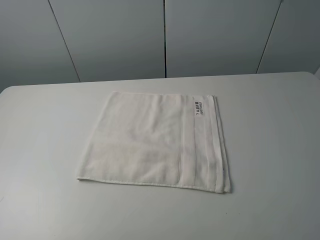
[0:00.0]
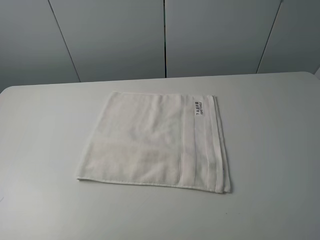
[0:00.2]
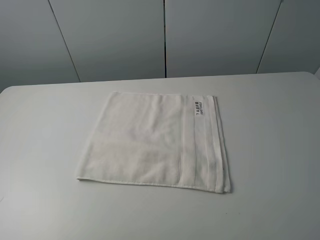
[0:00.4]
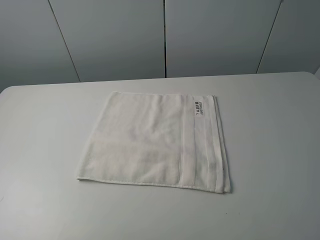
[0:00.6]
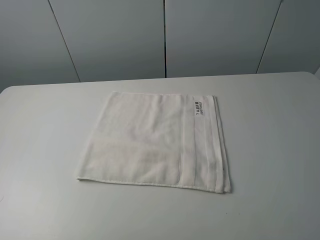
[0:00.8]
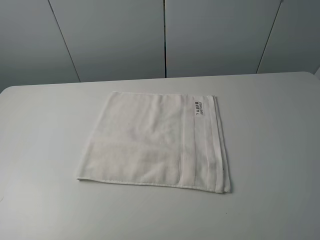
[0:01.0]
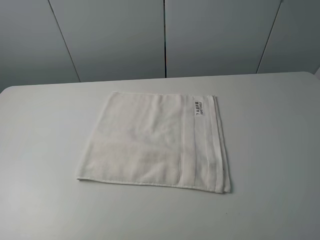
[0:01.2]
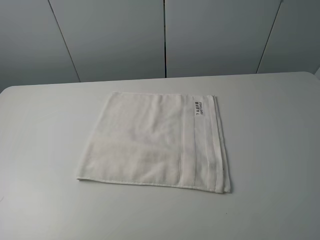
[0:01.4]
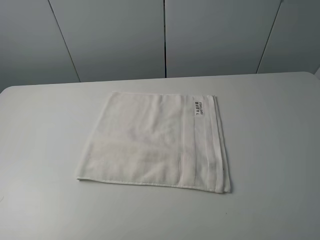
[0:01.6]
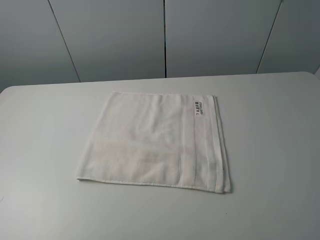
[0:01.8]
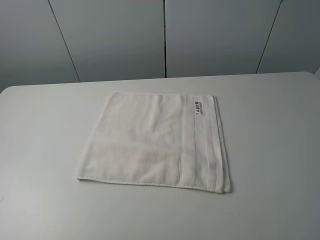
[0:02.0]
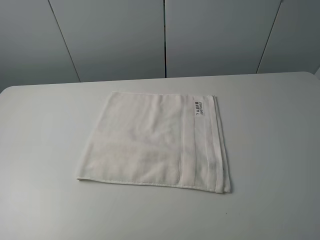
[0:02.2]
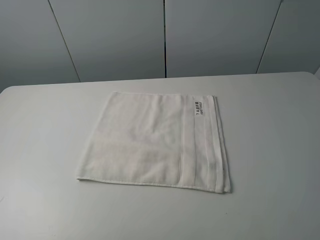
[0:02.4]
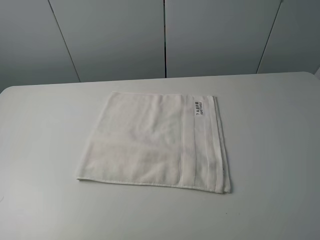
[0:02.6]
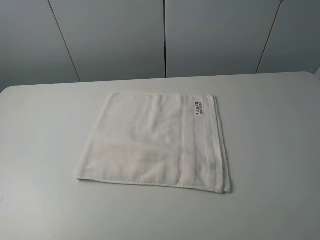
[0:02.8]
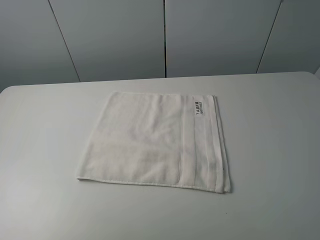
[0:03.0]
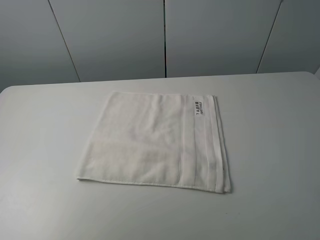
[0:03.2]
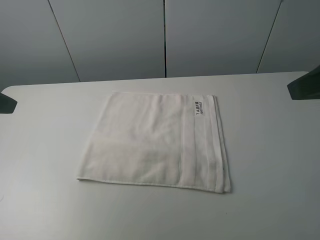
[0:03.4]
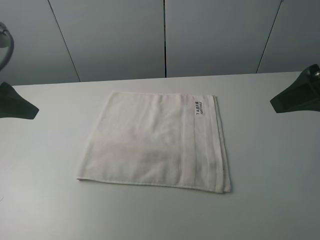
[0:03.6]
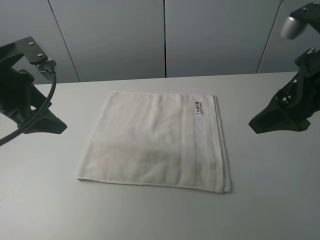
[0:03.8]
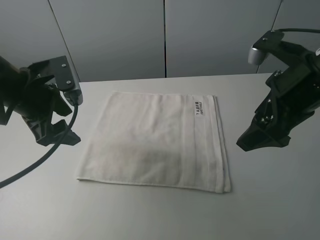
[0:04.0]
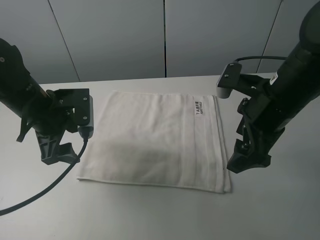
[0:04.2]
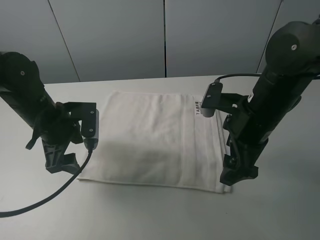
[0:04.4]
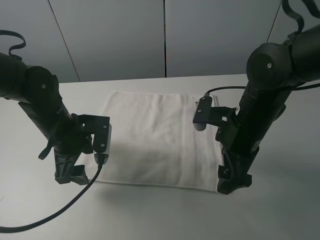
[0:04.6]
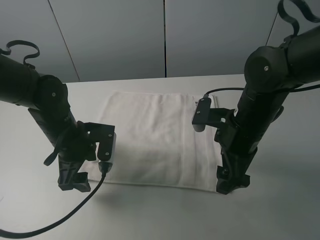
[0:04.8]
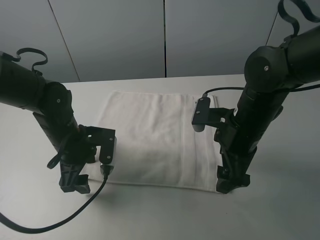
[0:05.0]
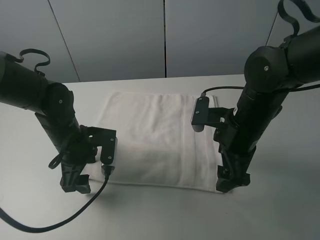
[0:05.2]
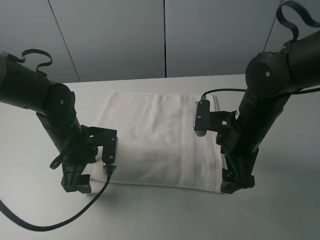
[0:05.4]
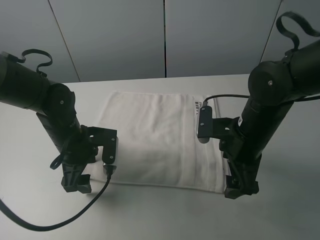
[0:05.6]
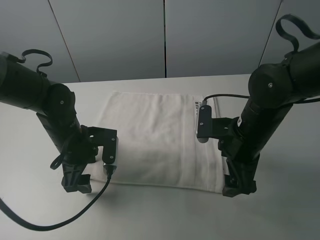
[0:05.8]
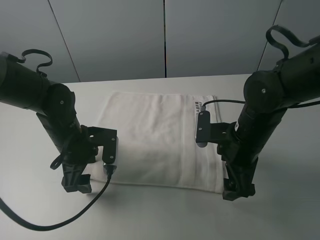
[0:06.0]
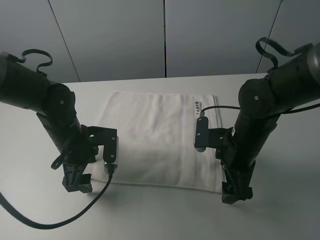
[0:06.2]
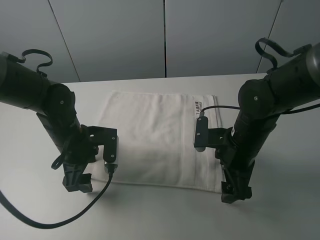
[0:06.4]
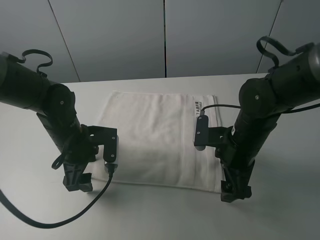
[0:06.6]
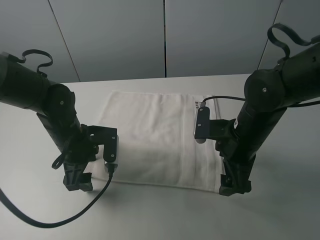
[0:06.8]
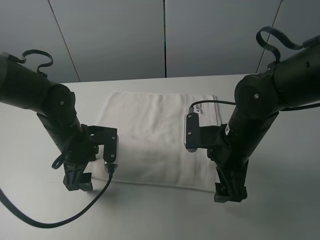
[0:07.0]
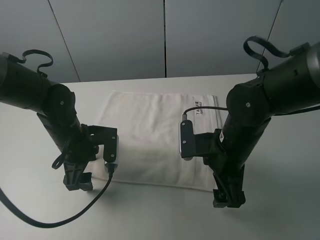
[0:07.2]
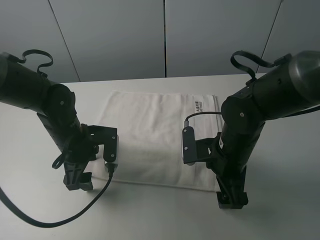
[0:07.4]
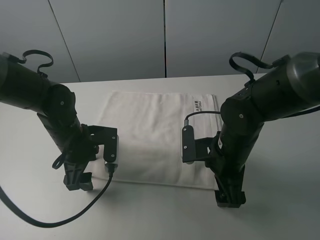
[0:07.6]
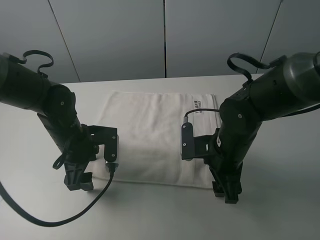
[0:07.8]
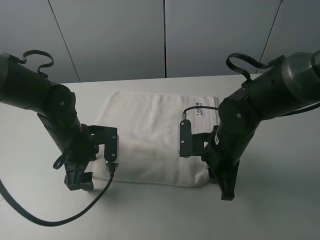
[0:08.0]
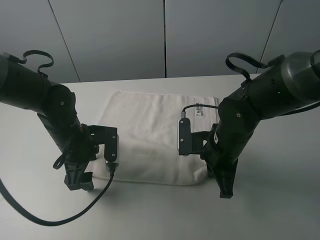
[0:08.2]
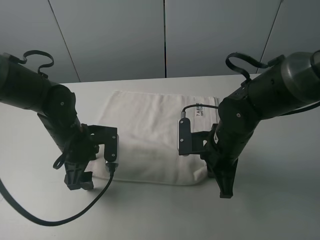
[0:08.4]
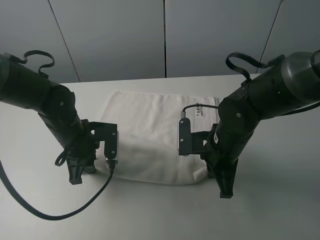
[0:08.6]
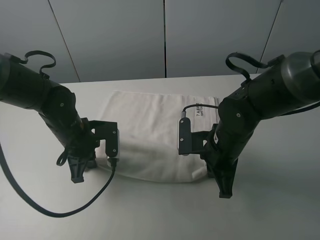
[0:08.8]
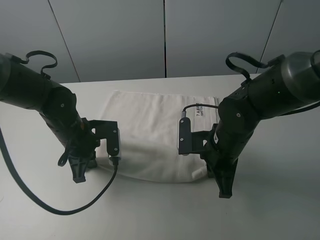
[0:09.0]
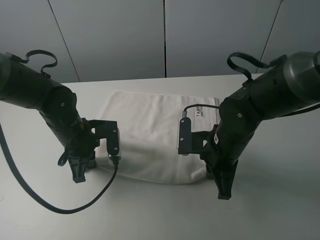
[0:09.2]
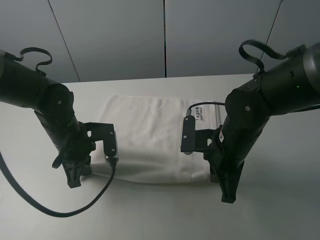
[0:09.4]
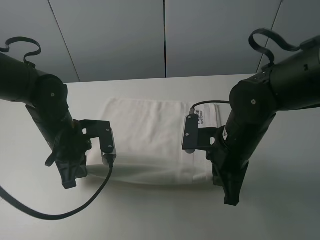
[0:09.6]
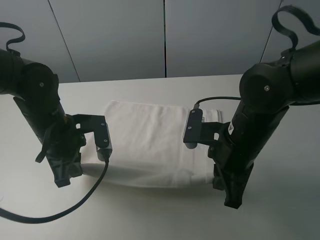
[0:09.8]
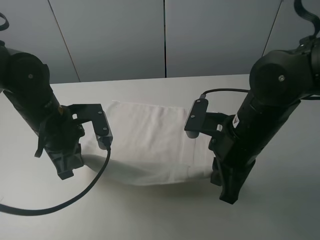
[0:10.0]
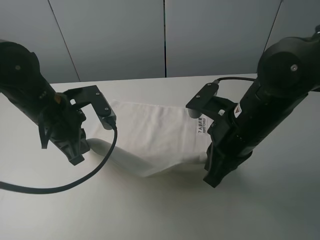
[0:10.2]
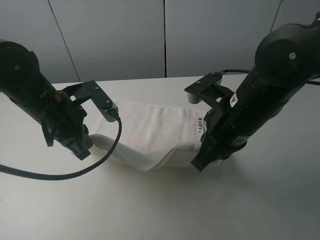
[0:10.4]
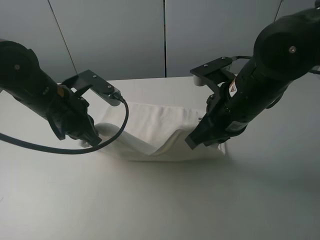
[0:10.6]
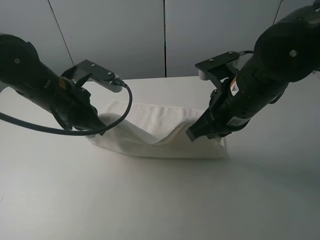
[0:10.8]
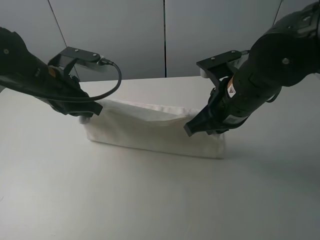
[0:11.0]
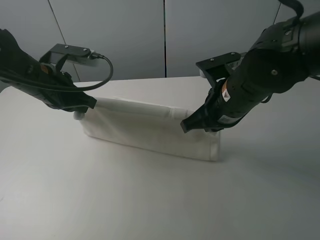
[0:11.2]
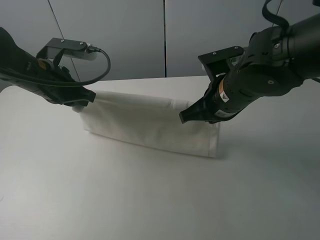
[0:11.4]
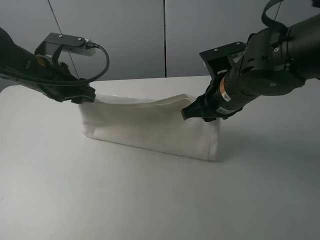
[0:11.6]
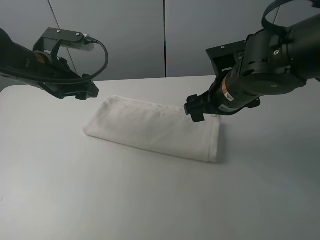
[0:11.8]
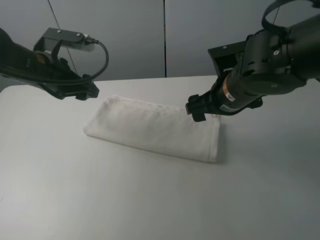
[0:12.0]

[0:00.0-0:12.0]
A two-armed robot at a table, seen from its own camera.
Task of the whole recording: fold the towels on the table.
Step, 0:00.0 to 0:08.2: Grasp the white towel with the right gripper.
Step, 0:08.4 to 0:08.6: Grasp the white towel with the left gripper.
Step, 0:08.8 to 0:11.8: Fold the white towel upwards with the right gripper.
0:00.0 to 0:01.6: Both grippers stay about where they are.
0:03.0 to 0:04.4: The left gripper heads downward, forward and to the right, covering approximately 30 cm, while the right gripper shifts some 25 cm forward, downward and to the left.
0:04.4 to 0:06.0: Both grippers travel together downward, approximately 5 cm.
0:06.0 to 0:07.6: The grippers stay close to where they were, moving slightly.
0:07.6 to 0:09.0: The right gripper closes up; the left gripper closes.
0:09.0 to 0:10.4: Both grippers move upward, approximately 10 cm.
0:10.4 to 0:12.0: Both grippers travel together forward, about 5 cm. The right gripper opens its fingers; the left gripper opens its fingers.

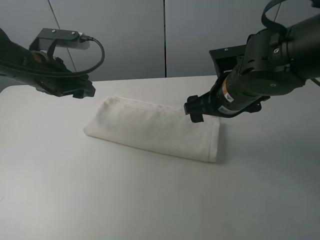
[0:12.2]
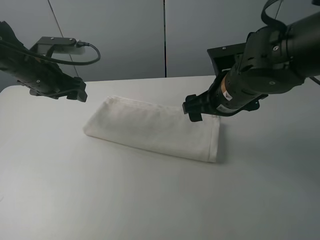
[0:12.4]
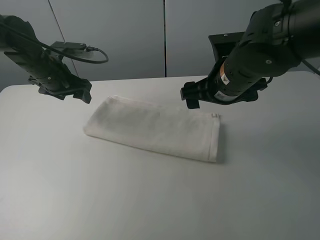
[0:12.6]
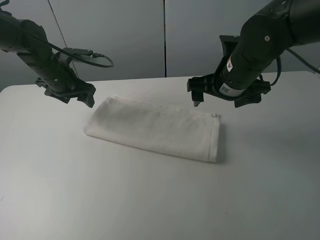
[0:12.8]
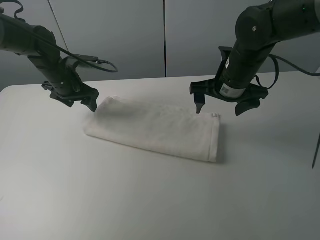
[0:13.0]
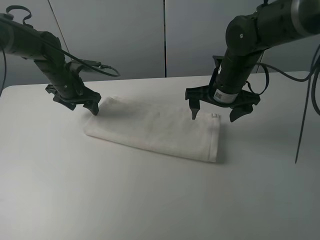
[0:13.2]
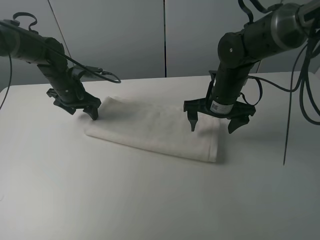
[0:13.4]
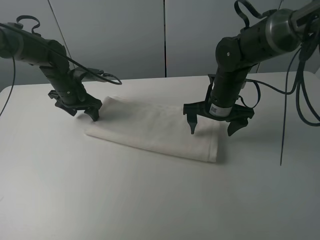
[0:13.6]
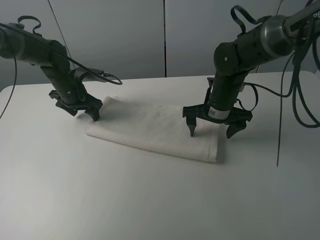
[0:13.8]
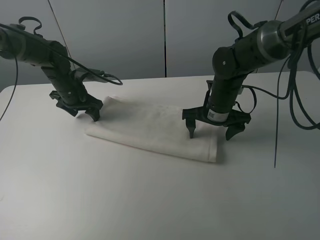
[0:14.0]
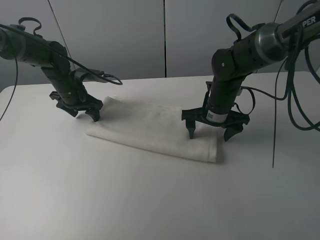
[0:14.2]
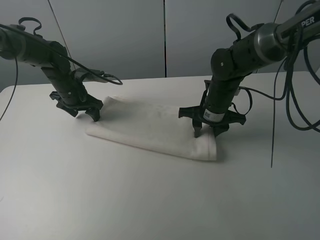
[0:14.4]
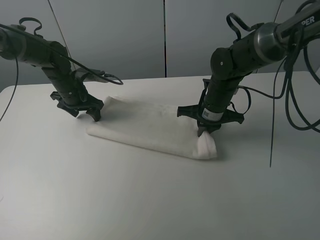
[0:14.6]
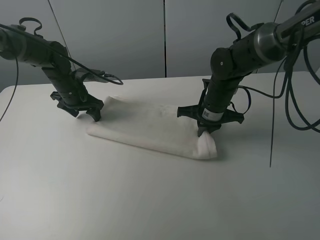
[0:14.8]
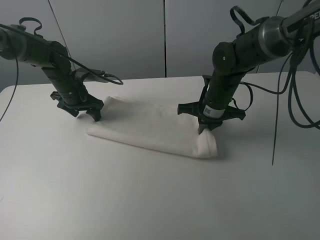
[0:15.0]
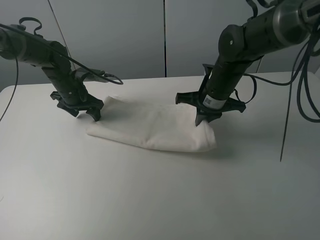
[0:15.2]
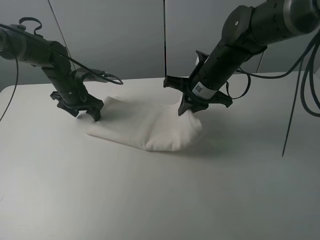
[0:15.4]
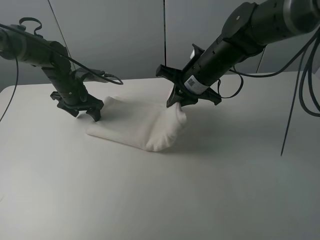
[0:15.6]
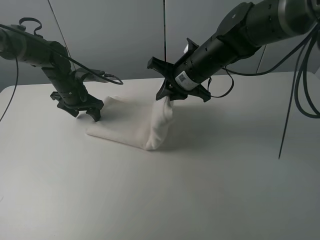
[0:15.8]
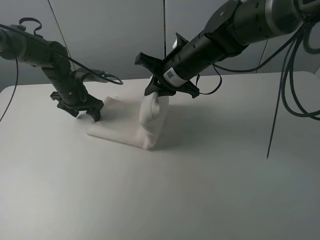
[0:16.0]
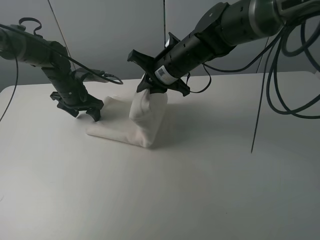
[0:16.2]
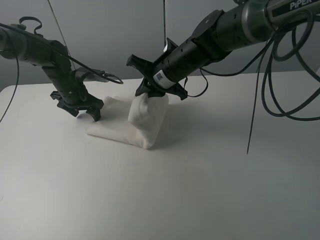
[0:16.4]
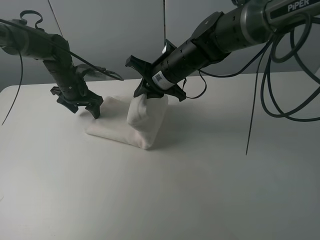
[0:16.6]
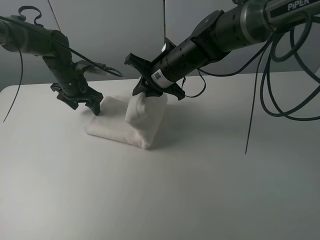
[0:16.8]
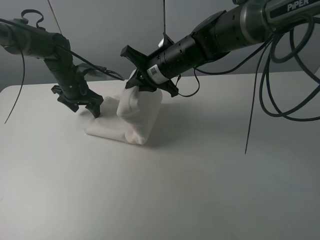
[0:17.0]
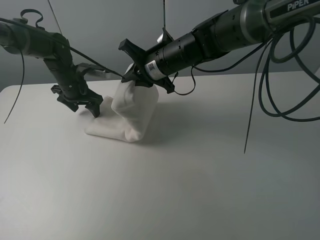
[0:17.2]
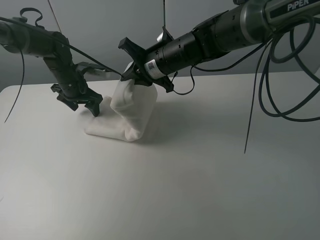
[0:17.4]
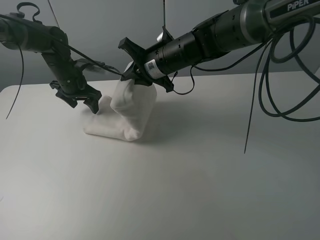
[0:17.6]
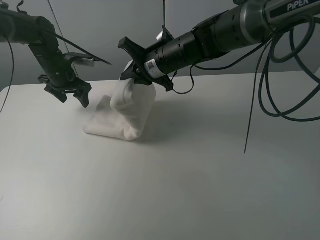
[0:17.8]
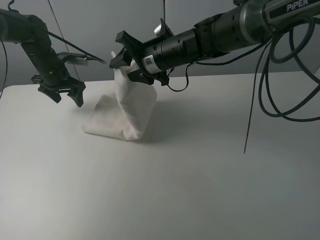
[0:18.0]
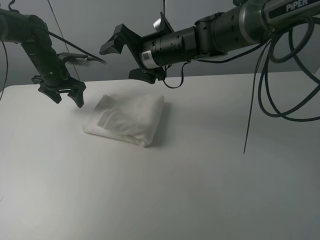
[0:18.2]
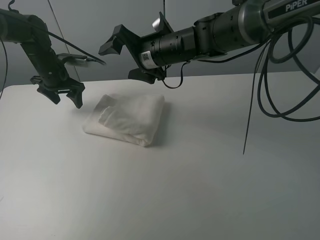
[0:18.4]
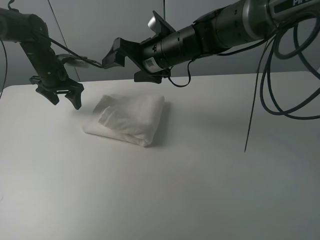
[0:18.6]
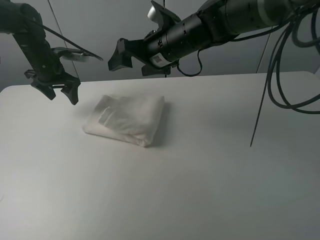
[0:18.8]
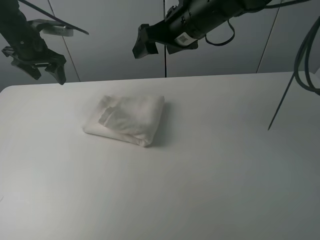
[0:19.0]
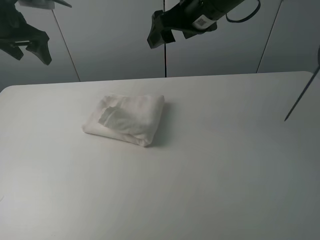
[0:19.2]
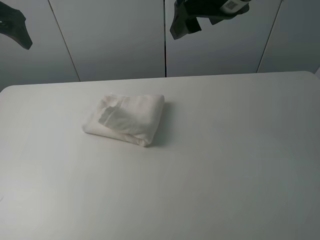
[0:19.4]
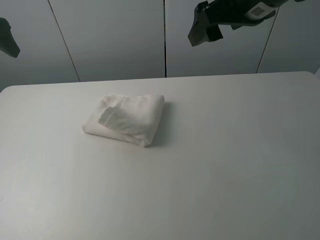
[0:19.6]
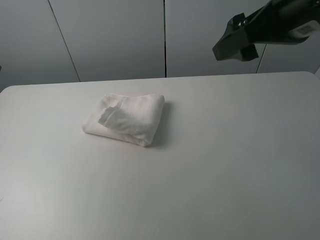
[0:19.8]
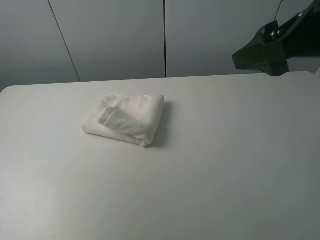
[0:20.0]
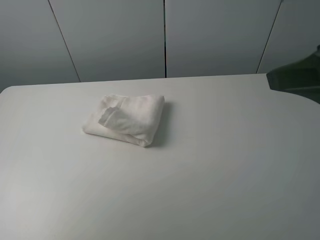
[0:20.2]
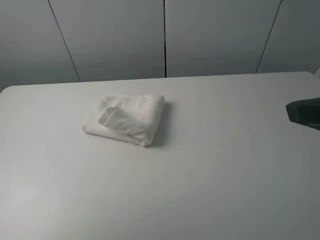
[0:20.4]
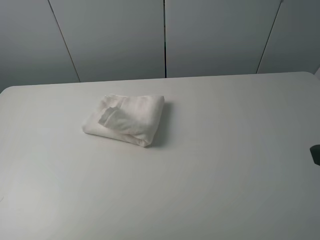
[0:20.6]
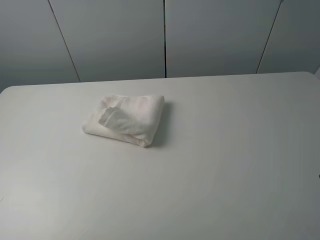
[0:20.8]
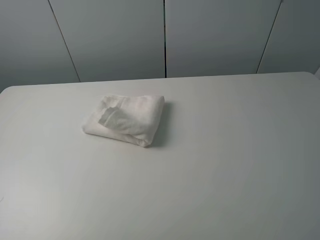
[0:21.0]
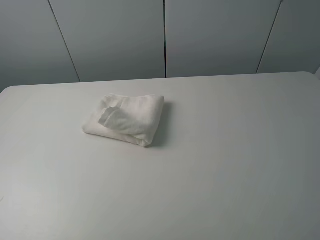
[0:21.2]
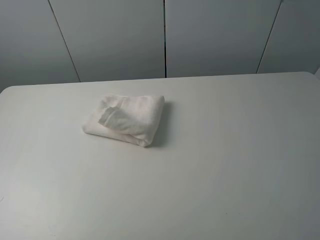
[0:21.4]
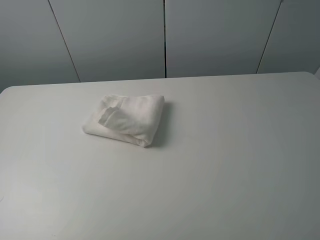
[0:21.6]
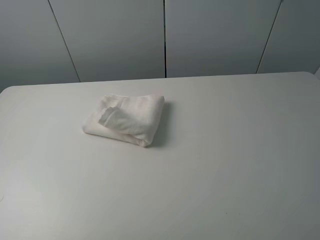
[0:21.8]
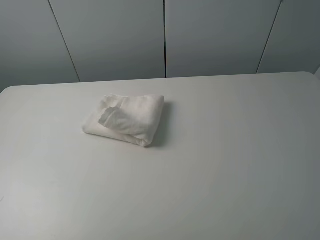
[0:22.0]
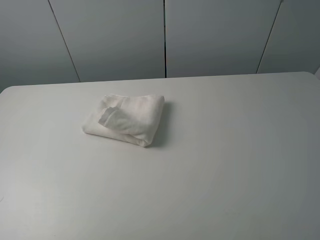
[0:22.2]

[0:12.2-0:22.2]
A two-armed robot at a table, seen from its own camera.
Task of the whole recording: fold the towels on the table.
Step, 0:12.2 to 0:13.6: Press on the white towel with the left gripper.
Step, 0:13.8 to 0:18.2: Fold the white towel from right to left with right gripper.
0:12.2 to 0:13.6: The right gripper heads forward and downward, covering some 10 cm; the left gripper goes roughly 15 cm downward and forward.
0:13.6 to 0:15.0: The right gripper closes.
0:15.0 to 0:16.4: The right gripper heads to the left and upward, covering roughly 10 cm.
0:16.4 to 0:18.0: The right gripper opens, while the left gripper shifts by approximately 5 cm.
0:18.0 to 0:19.4: The right gripper heads upward, to the right and backward, covering roughly 20 cm, while the left gripper goes about 20 cm upward and backward.
0:19.4 to 0:20.8: The right gripper heads backward and to the right, covering about 30 cm, while the left gripper travels backward by some 35 cm.
